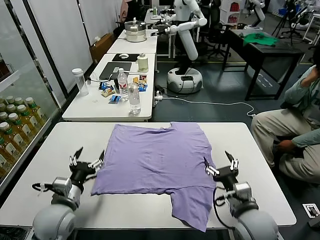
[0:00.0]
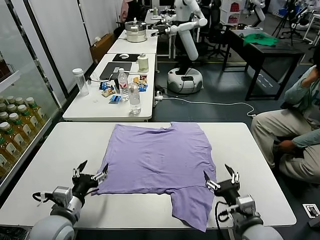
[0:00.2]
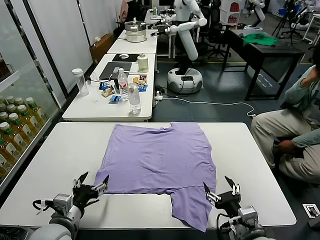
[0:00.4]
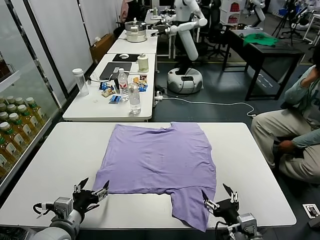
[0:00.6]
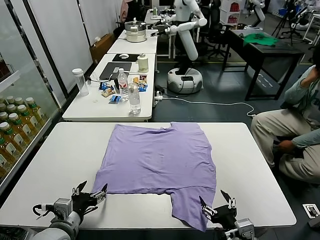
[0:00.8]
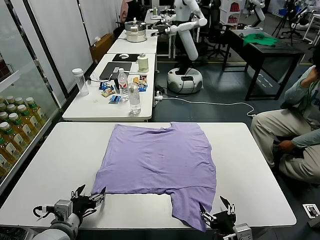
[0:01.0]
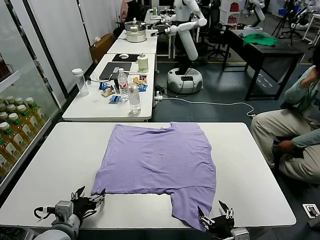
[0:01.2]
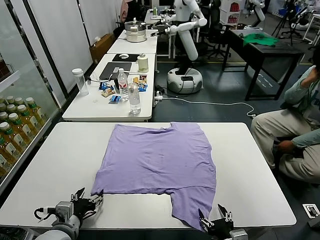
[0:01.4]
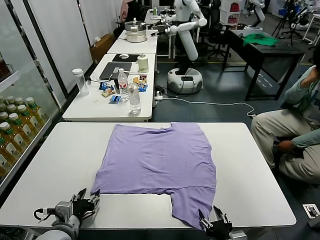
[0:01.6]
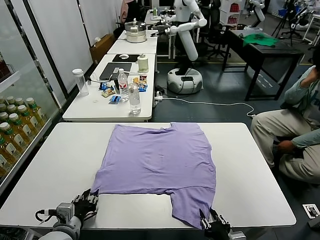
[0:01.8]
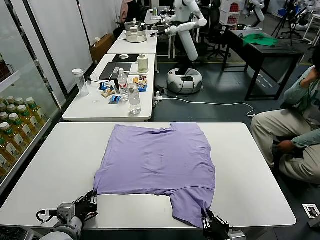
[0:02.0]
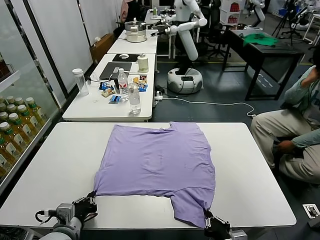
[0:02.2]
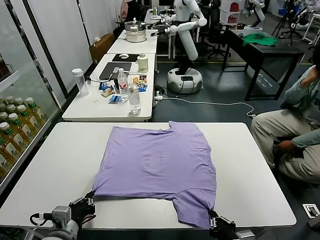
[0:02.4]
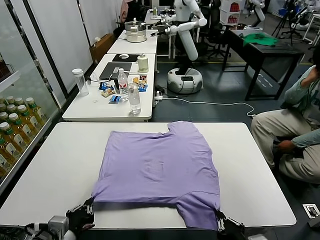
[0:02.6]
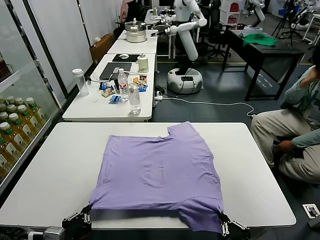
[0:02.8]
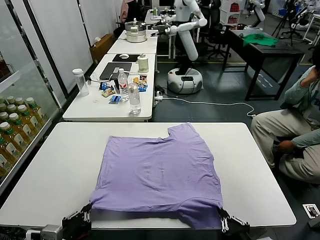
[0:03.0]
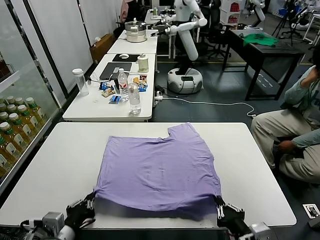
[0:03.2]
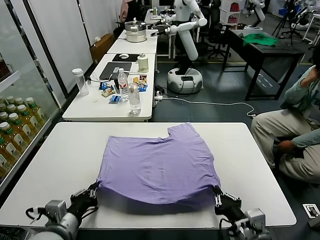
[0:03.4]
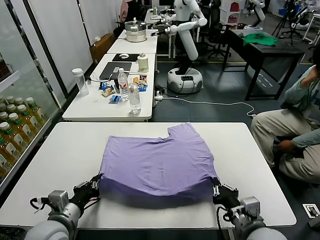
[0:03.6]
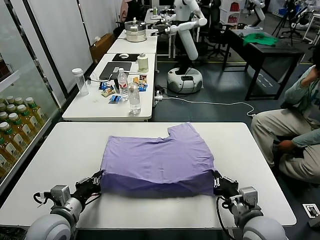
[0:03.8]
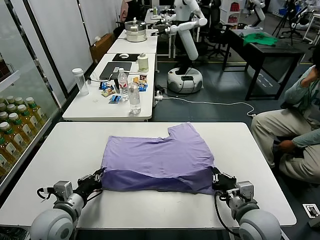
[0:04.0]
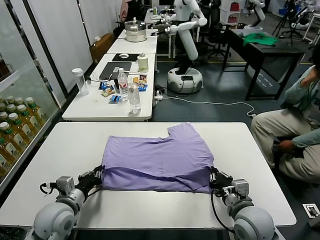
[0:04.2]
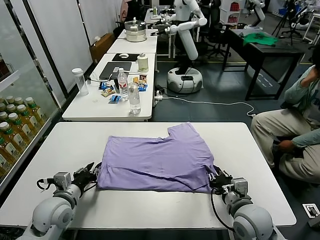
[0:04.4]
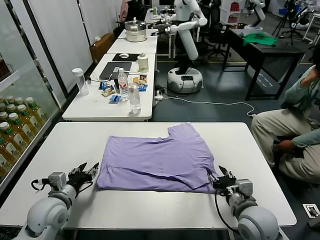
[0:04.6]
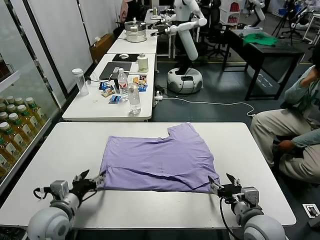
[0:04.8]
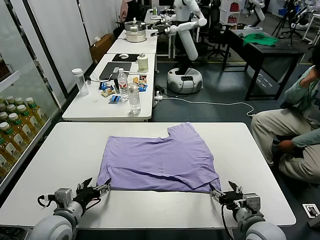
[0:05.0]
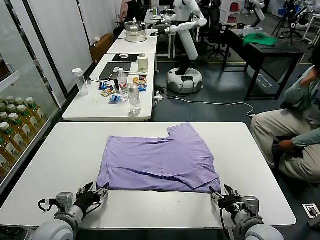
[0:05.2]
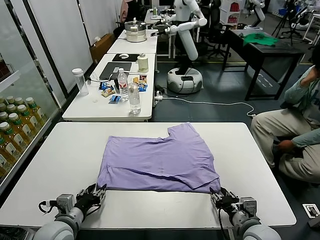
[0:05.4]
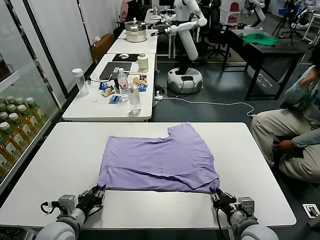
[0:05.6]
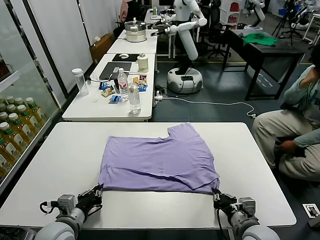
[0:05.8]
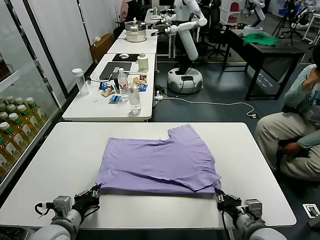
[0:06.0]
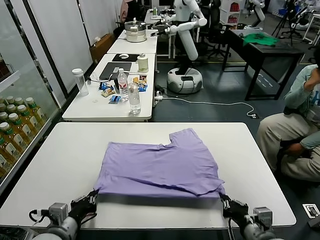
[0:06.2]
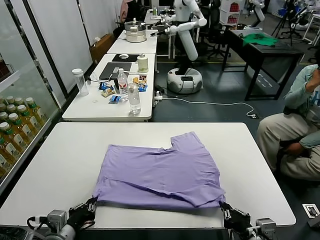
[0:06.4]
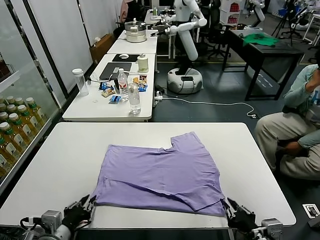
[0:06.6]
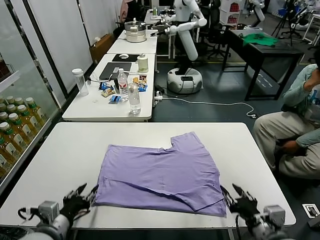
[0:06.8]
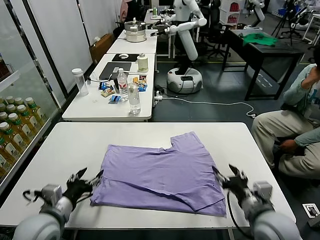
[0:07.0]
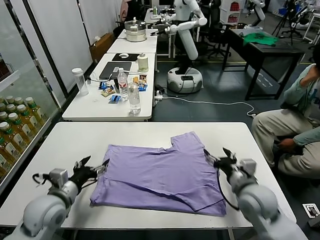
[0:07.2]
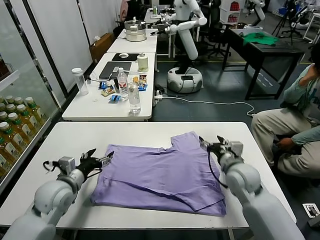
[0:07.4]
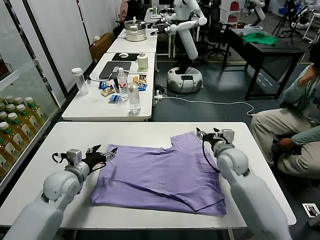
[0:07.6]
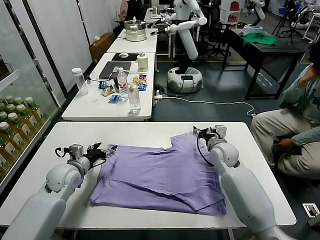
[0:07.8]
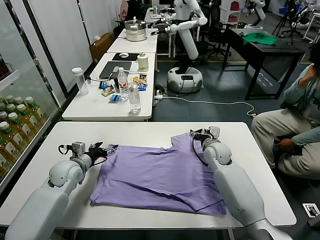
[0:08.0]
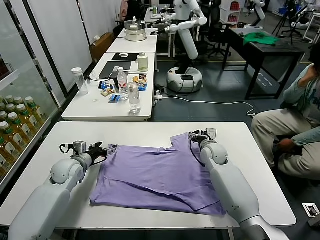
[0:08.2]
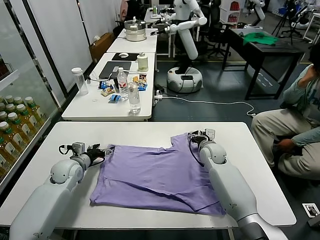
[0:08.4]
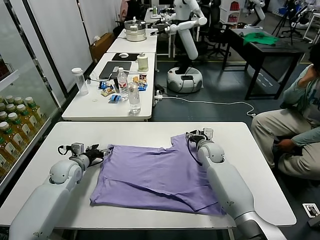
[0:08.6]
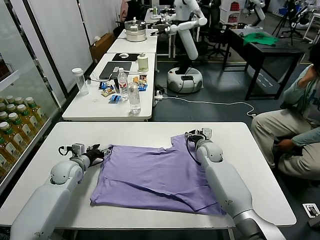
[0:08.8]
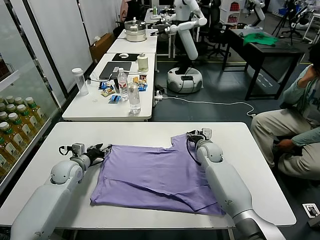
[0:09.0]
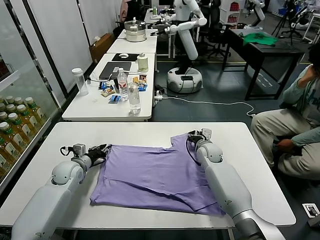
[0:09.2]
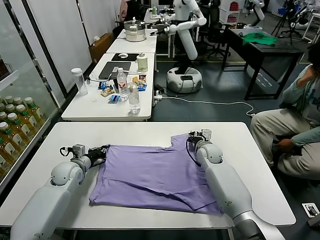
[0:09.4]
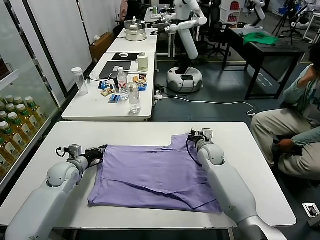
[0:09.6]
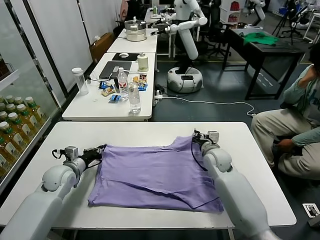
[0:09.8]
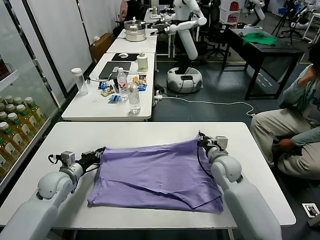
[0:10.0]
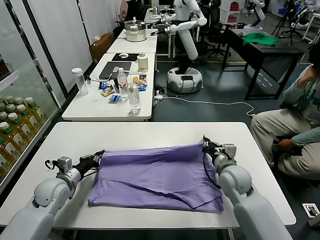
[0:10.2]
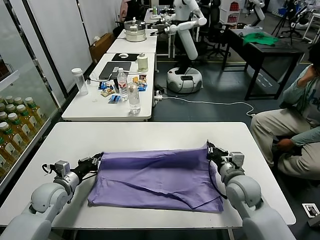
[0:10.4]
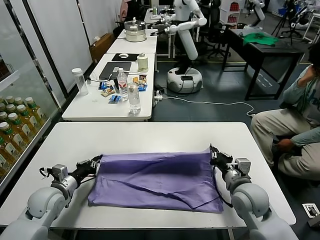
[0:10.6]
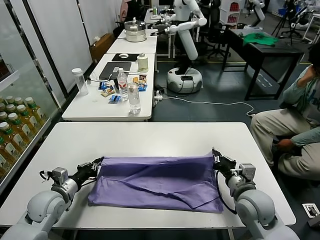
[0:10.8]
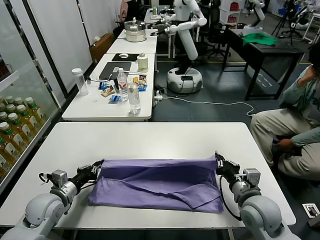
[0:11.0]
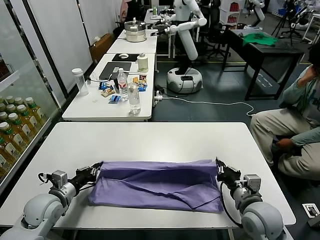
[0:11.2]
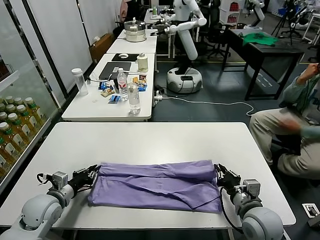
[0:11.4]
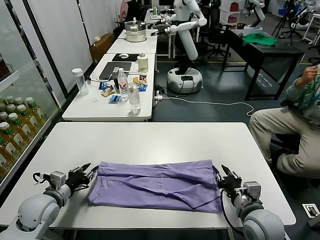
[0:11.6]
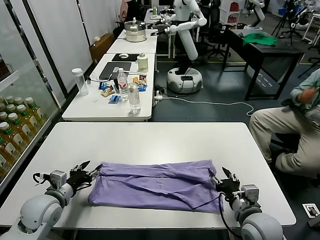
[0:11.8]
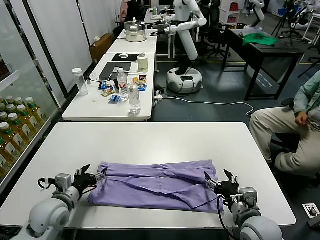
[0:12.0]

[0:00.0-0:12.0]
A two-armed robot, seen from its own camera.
Task of the whole recording: fold and organize the clothes.
Step, 0:00.0 to 0:02.2: use both grippers simultaneously to clamp the lower edge of the clothing fabric.
Step, 0:02.4 to 0:04.6: use both grippers to drag the lower edge of the fabric forward and fold it over the upper edge.
Step, 0:04.8 to 0:06.6: Drag the clothes downward with both gripper.
Step, 0:06.8 to 0:09.4: use both grippers simultaneously to clamp the upper edge of the clothing fabric.
Step, 0:09.6 to 0:11.8: use both grippers to drag the upper edge of the fabric backward and fold it over the lower edge.
0:01.6 to 0:03.0: The right gripper shifts about 5 cm upward, and closes its fingers. Meanwhile the left gripper travels backward and upward by roughly 10 cm, and closes its fingers.
0:03.0 to 0:04.4: Both grippers travel together forward, approximately 15 cm. The left gripper opens up. The right gripper opens.
0:04.4 to 0:06.0: Both grippers travel together backward, approximately 10 cm. The right gripper closes. Meanwhile the left gripper closes.
0:06.0 to 0:07.6: The left gripper moves forward, some 15 cm, and opens up, while the right gripper is displaced forward by roughly 30 cm, and opens up.
0:07.6 to 0:09.0: The grippers both shift forward and downward by roughly 10 cm. The right gripper closes up. Meanwhile the left gripper closes up.
0:09.0 to 0:10.4: The left gripper is displaced backward by some 10 cm, and closes up; the right gripper goes roughly 20 cm backward, and closes up.
0:10.4 to 0:12.0: The right gripper shifts about 10 cm backward, and opens. Meanwhile the left gripper moves backward, roughly 5 cm, and opens.

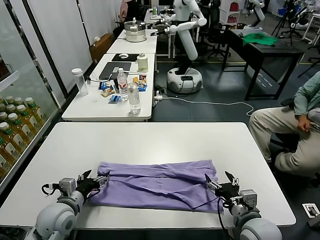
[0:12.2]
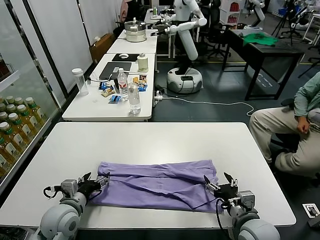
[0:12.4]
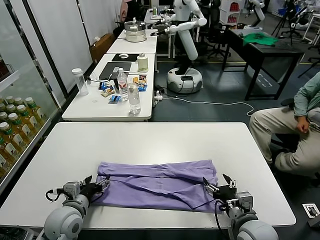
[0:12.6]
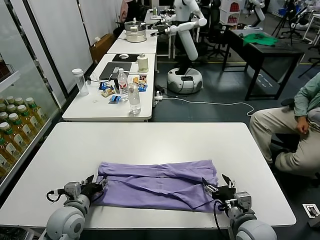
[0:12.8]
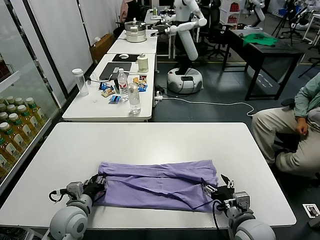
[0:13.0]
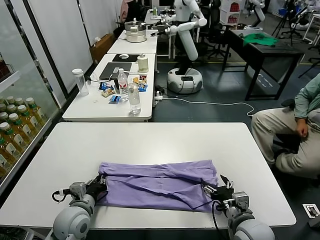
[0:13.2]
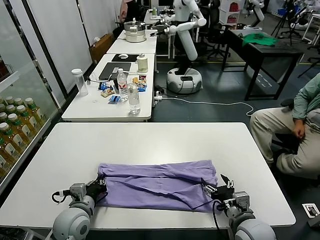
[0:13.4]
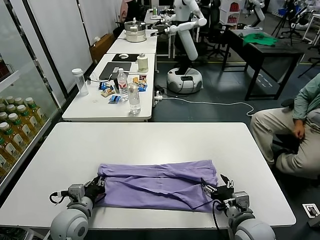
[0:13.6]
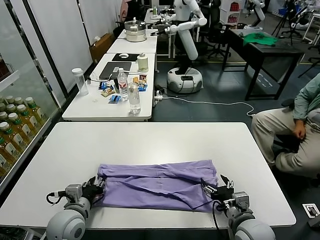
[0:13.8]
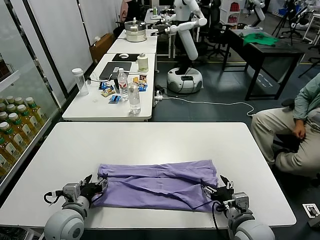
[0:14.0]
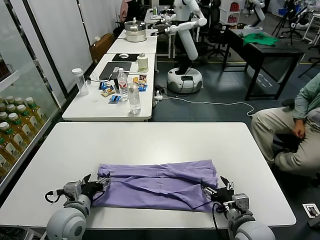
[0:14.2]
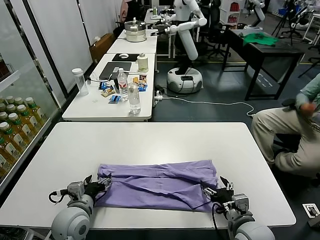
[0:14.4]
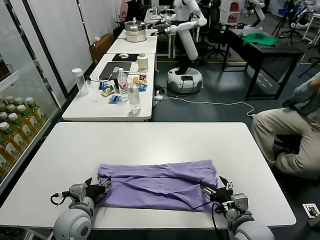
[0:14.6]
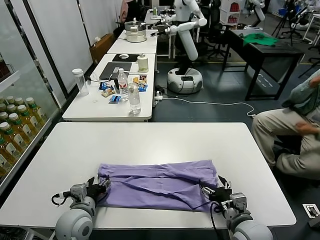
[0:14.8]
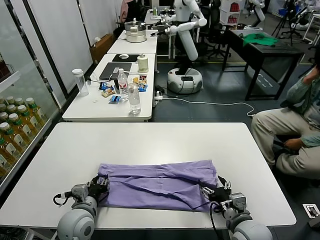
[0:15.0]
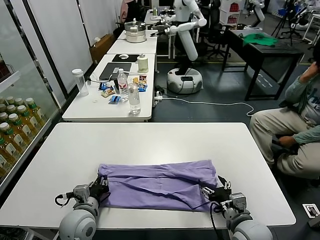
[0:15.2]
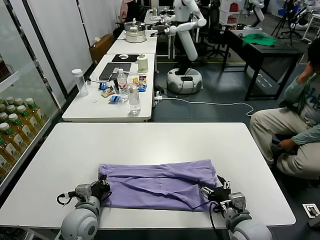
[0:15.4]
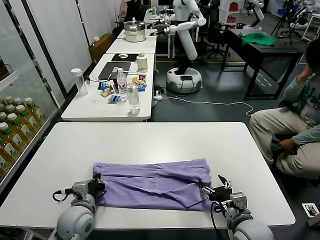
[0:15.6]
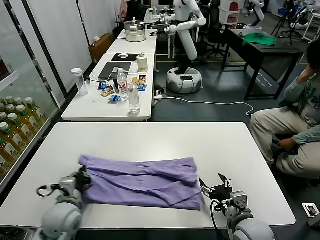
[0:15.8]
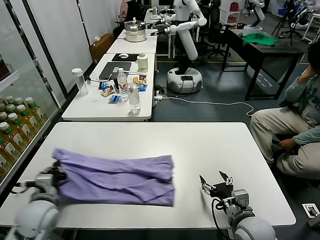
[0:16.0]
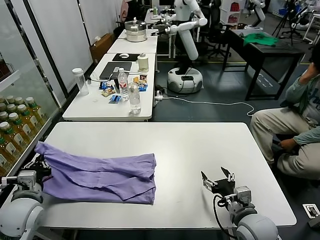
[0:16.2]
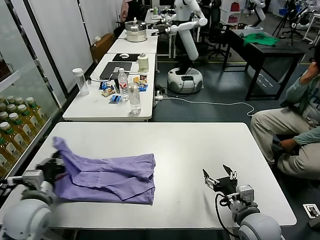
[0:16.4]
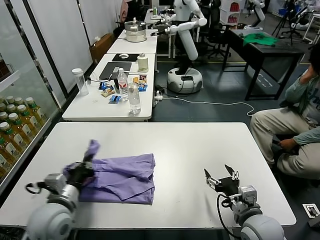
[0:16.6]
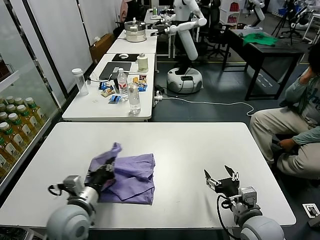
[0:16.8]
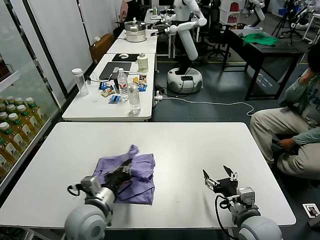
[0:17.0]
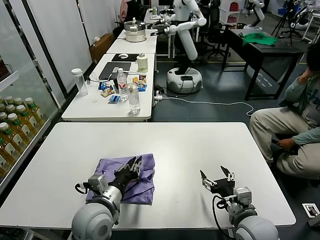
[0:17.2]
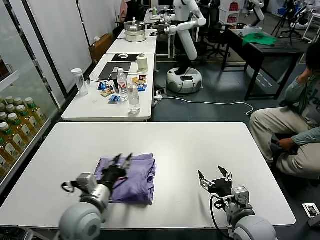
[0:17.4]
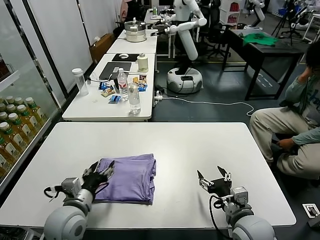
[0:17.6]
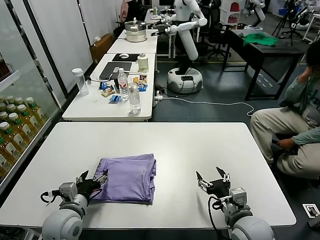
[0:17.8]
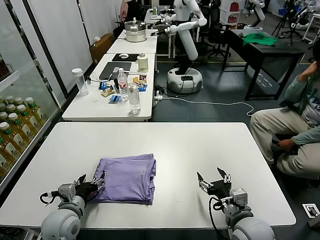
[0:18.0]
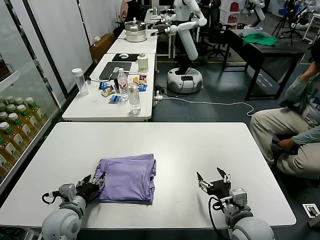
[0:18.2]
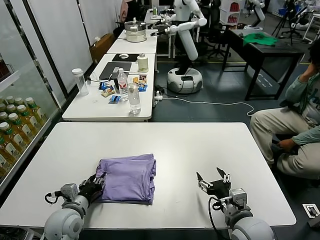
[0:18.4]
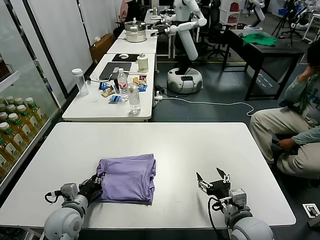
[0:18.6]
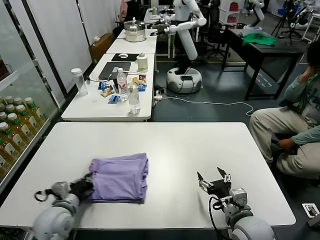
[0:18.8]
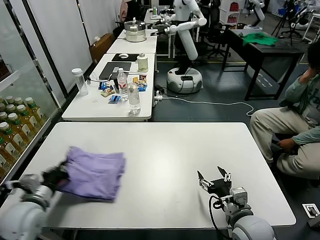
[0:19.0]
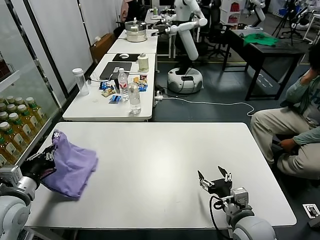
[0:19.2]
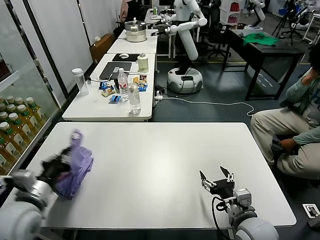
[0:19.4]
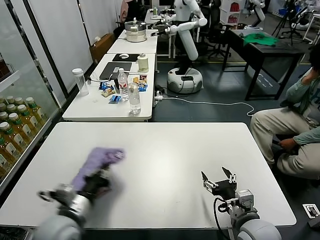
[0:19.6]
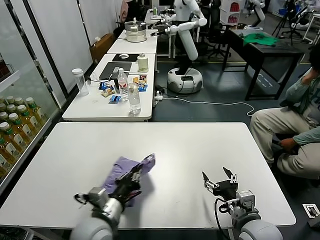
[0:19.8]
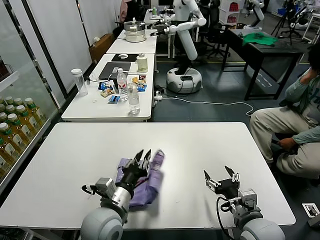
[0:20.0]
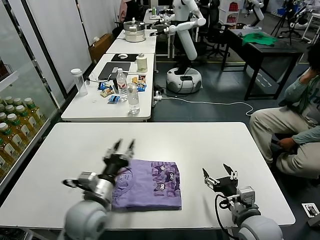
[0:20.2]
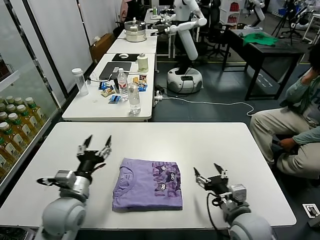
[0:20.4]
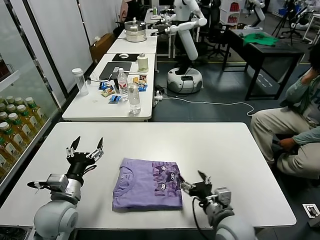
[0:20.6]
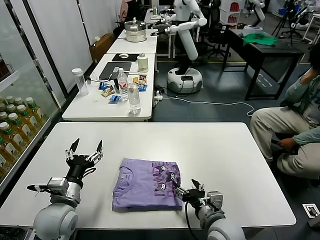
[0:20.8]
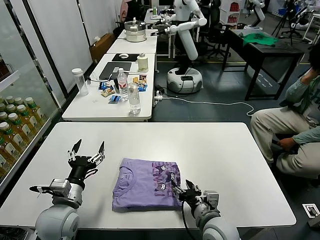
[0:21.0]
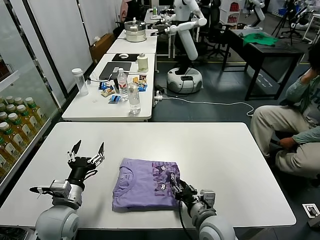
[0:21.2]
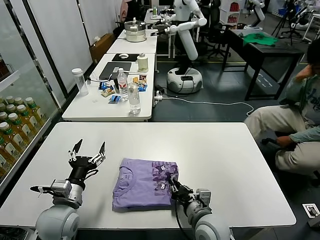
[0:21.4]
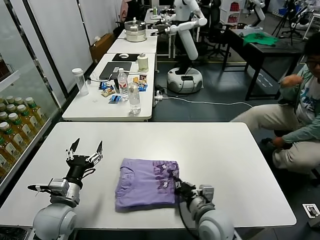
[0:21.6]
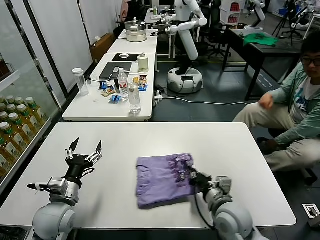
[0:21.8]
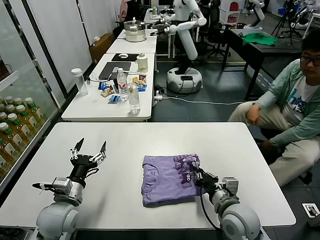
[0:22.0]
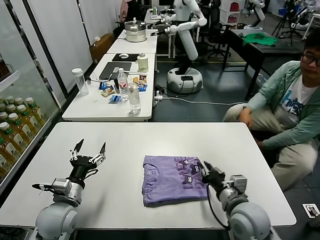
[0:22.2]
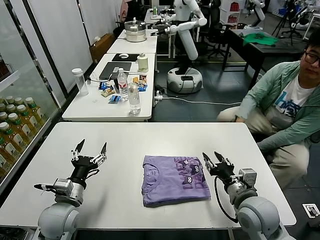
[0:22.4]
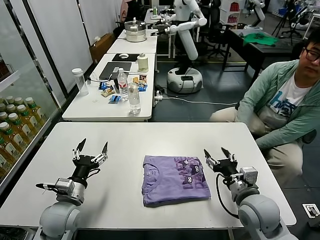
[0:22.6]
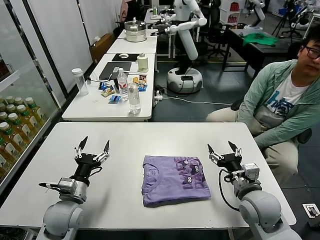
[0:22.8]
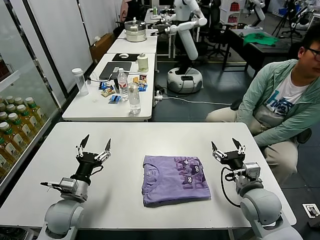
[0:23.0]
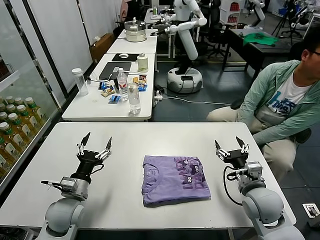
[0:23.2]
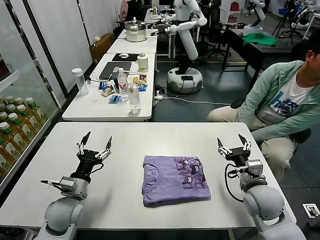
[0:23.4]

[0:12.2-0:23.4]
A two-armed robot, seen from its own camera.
Task of the whole recording: fold and organize the clothes.
Step, 0:12.2 to 0:15.6: use the left gripper to clamp the left edge of the fabric.
Step, 0:15.8 to 0:17.4: use the left gripper to drag the left edge of the fabric to the left and folds it over the right edge.
Step, 0:17.6 to 0:20.0: Flip the folded clothes over with left gripper.
Step, 0:20.2 to 0:22.6: Drag the clothes to the center of the table.
0:12.2 to 0:13.8: The left gripper closes.
0:13.8 to 0:15.4: The left gripper closes its fingers.
0:15.4 to 0:17.0: The left gripper heads upward, covering some 10 cm, and moves some 15 cm to the left and comes back.
0:17.0 to 0:18.6: The left gripper shifts approximately 10 cm to the left and downward, and opens, then closes again.
0:18.6 to 0:20.2: The left gripper heads to the right and upward, covering approximately 15 cm.
0:20.2 to 0:21.8: The left gripper shifts approximately 10 cm to the left, and opens its fingers. Meanwhile the right gripper moves to the left, about 5 cm, and closes its fingers.
0:21.8 to 0:23.4: The right gripper travels to the right by approximately 10 cm, and opens.
